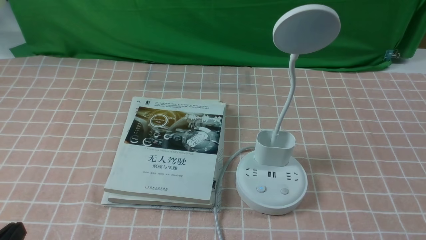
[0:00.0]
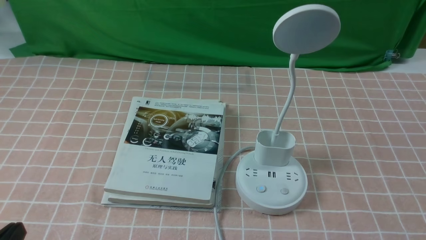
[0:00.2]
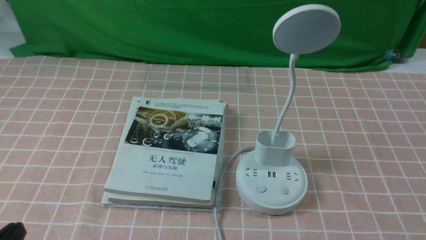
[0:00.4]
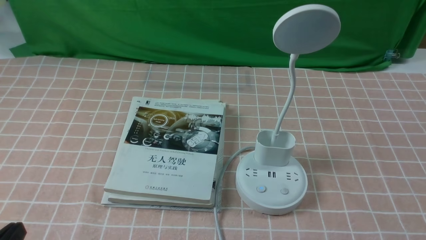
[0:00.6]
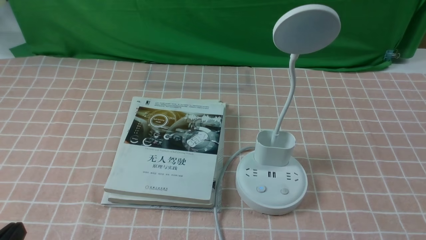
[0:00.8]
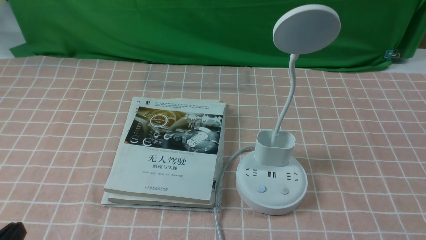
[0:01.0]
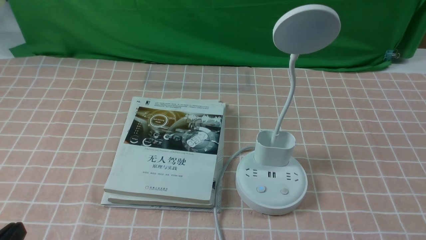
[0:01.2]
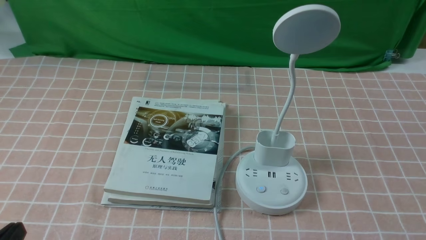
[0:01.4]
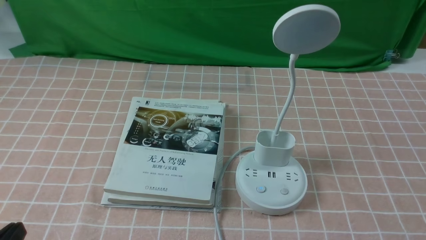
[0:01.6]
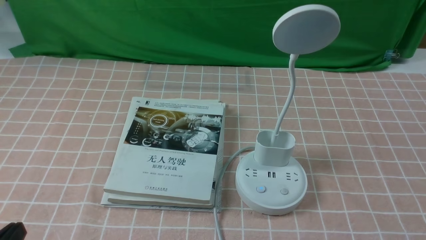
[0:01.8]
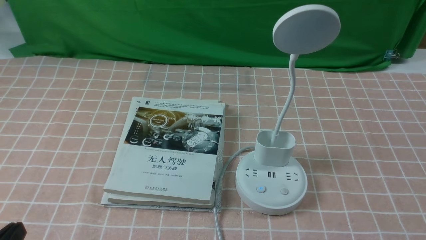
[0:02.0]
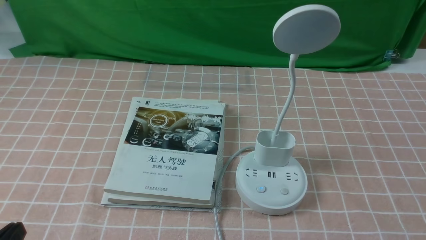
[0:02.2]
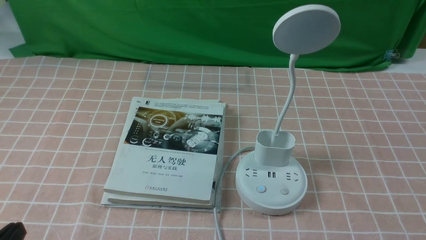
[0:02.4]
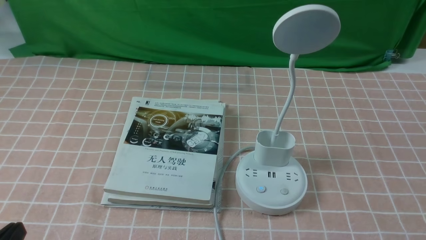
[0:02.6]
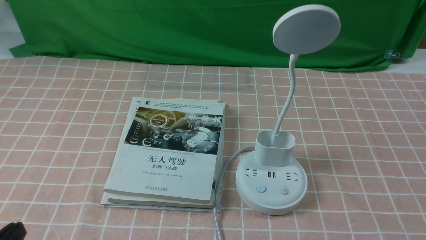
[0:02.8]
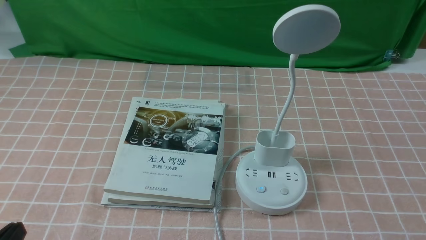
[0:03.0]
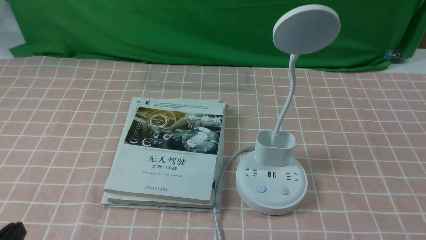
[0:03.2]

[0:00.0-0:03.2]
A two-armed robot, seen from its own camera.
Task of the whole recording: turn off the table lamp on the pink coffee tablecloth by hand.
0:00.0 to 0:01.6: Both grippers stay about where they are.
